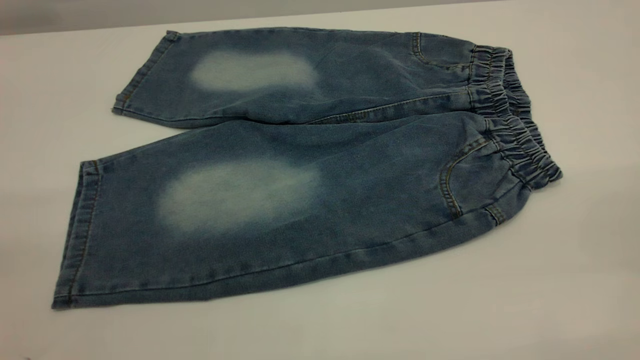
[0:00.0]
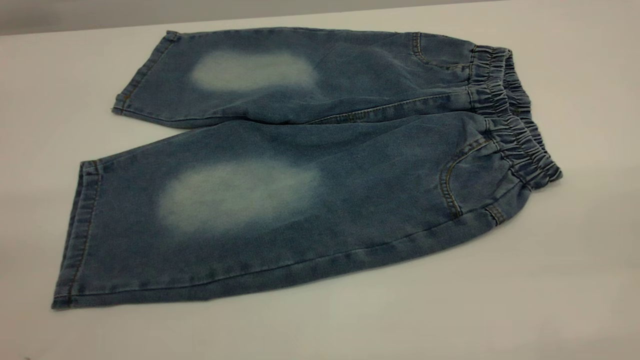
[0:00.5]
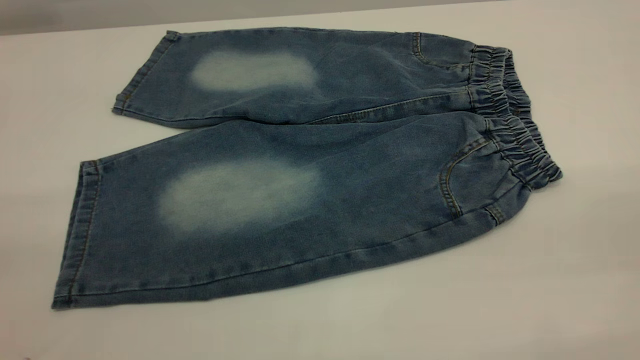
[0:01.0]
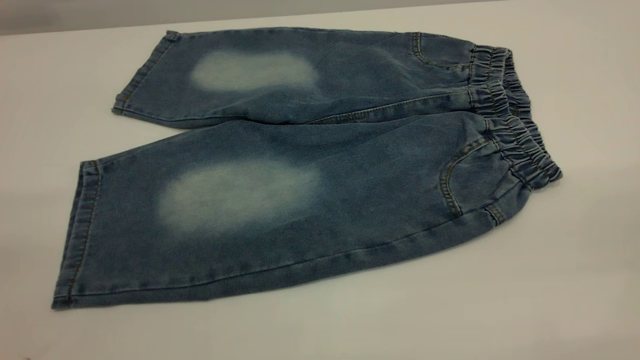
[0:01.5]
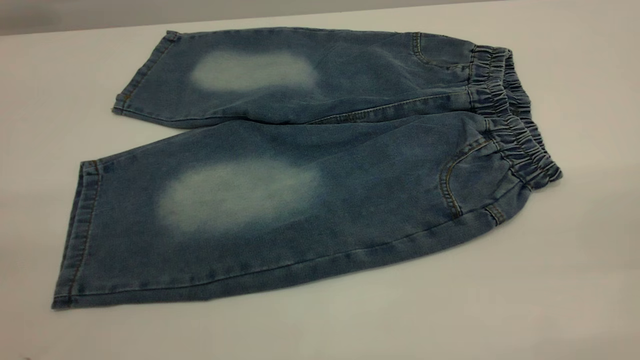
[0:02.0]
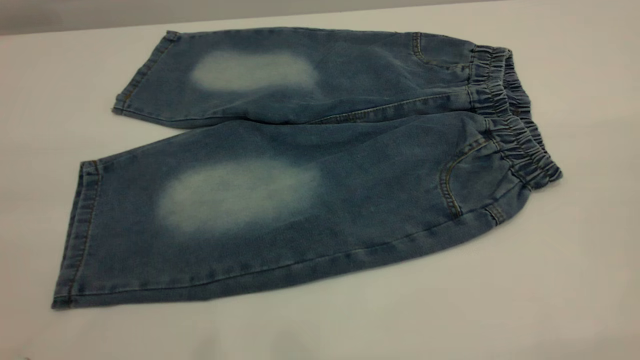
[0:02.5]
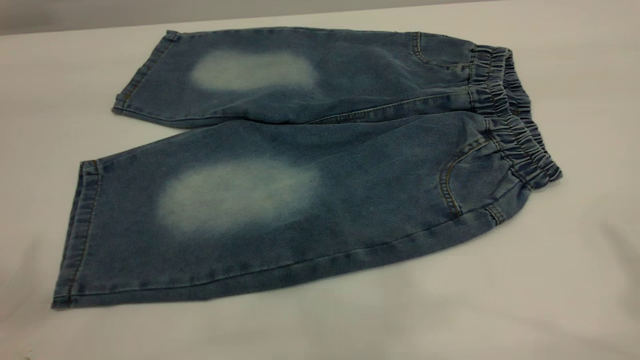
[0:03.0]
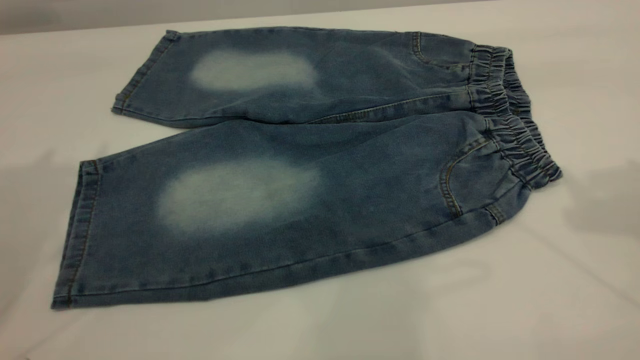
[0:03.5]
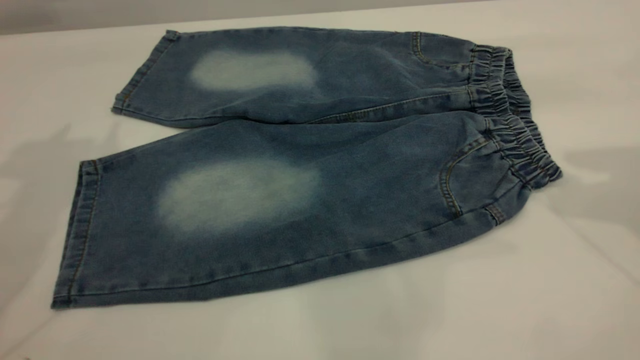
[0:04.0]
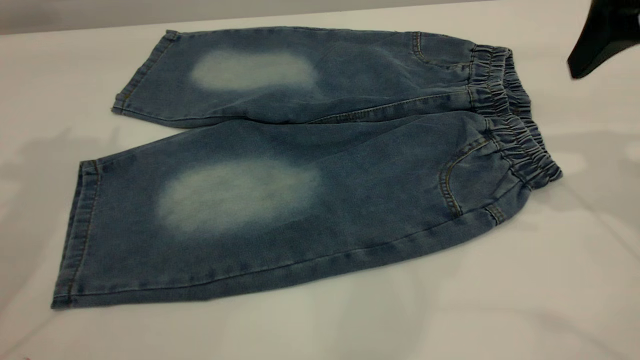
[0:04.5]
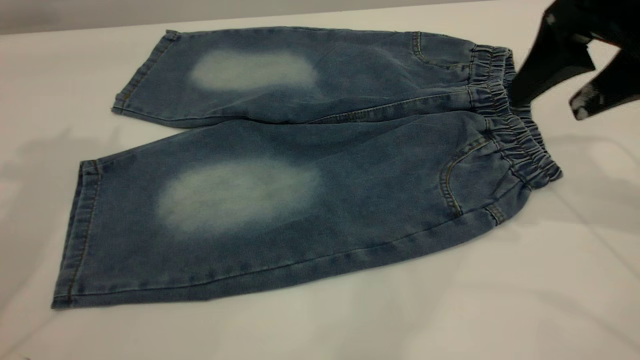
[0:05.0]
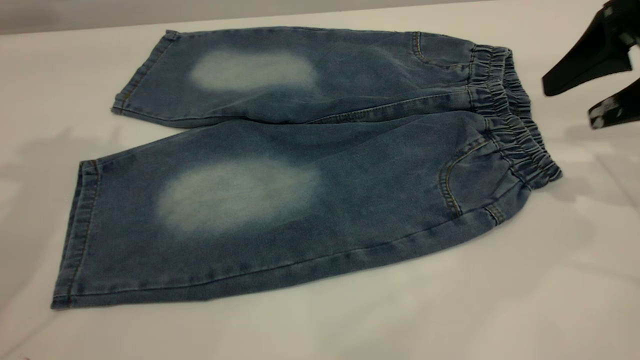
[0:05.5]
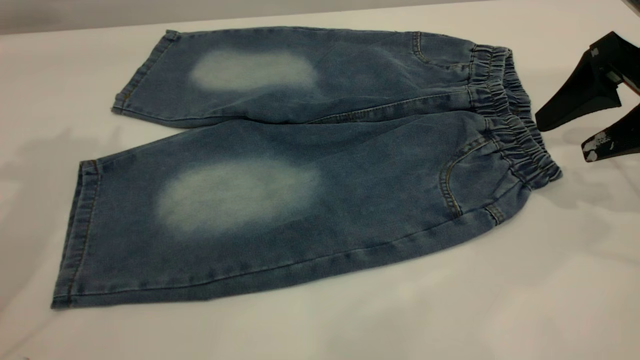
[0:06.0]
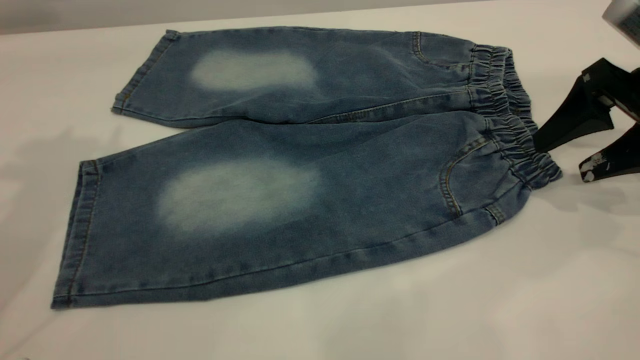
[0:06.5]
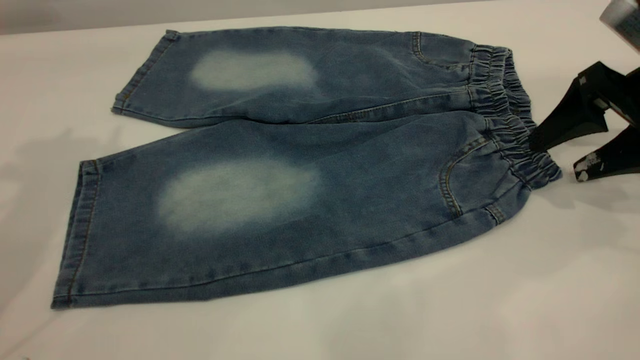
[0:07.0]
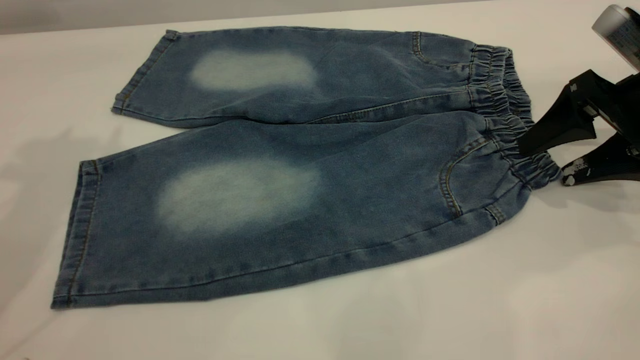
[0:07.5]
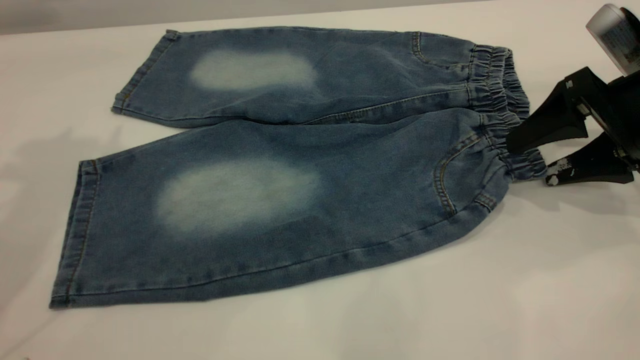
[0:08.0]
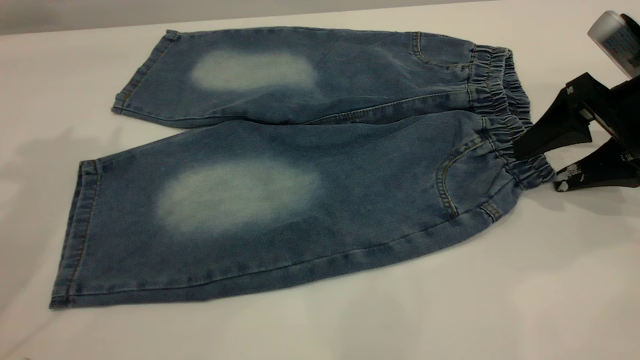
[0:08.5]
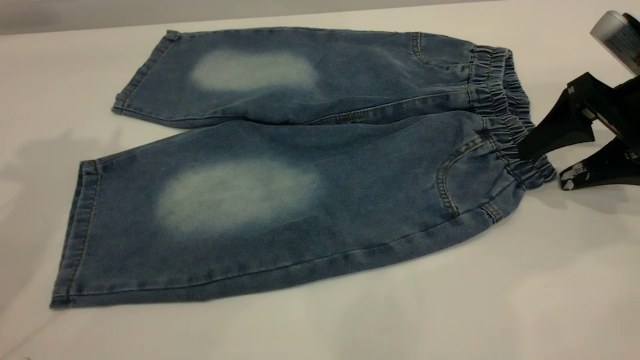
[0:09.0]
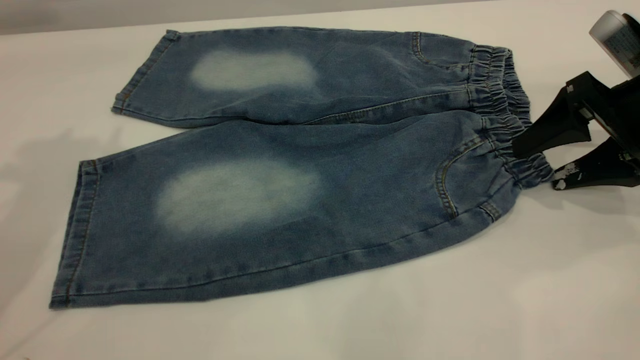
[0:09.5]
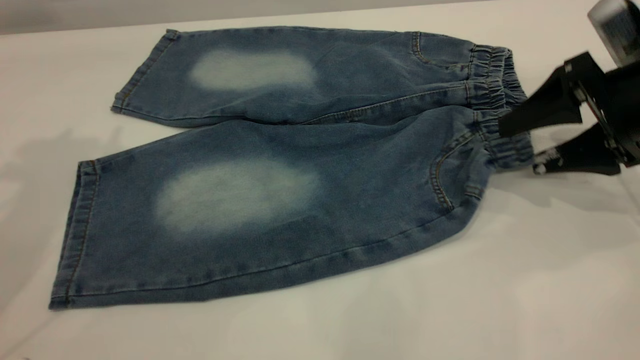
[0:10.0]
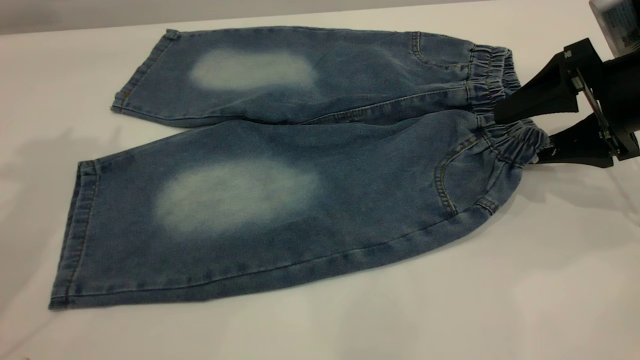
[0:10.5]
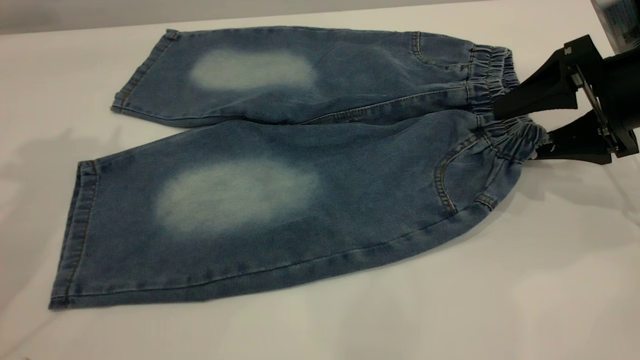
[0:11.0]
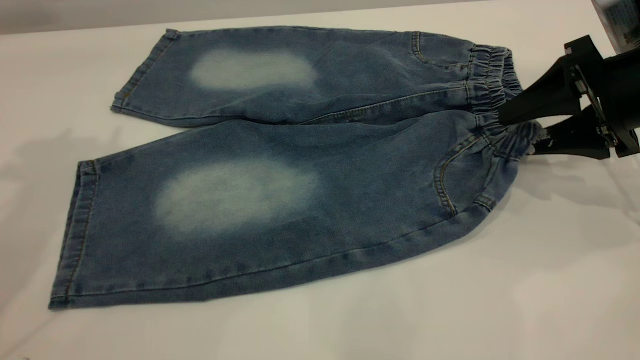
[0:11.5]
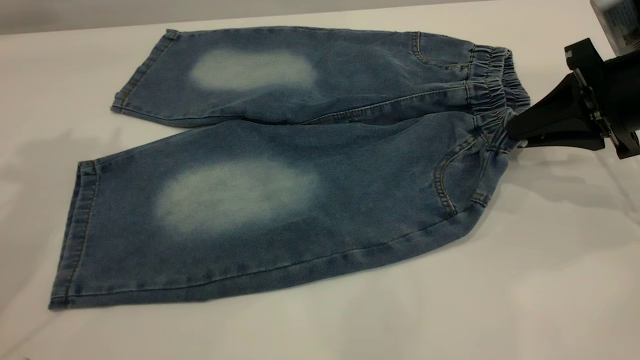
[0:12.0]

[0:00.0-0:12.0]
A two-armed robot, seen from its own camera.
0:00.0 to 0:02.0: Both grippers stay about where they are.
0:04.0 to 0:06.0: The right gripper is displaced downward by about 15 cm.
0:06.0 to 0:10.0: The grippers stay close to where they were, moving slightly.
0:10.0 to 0:12.0: The right gripper closes its fingers.

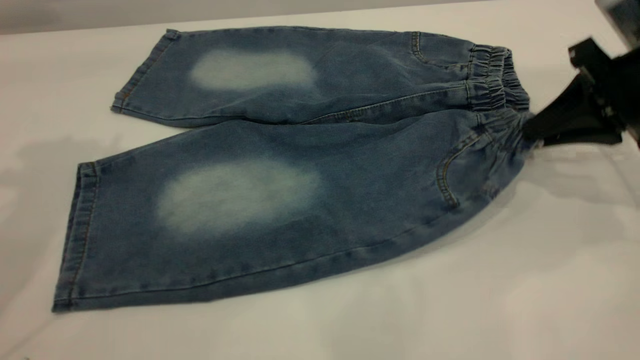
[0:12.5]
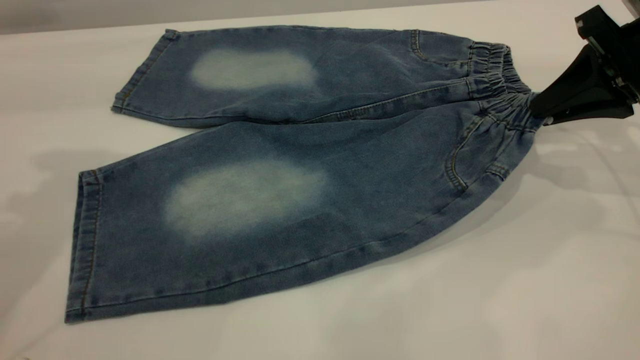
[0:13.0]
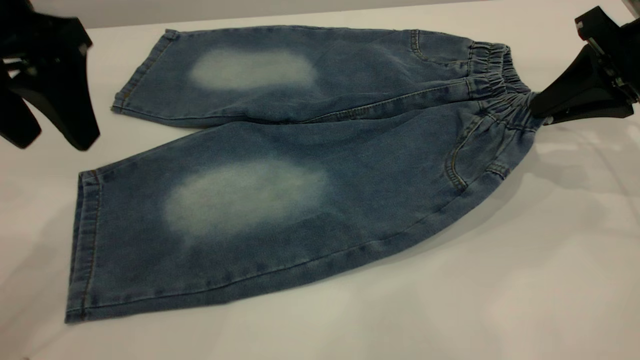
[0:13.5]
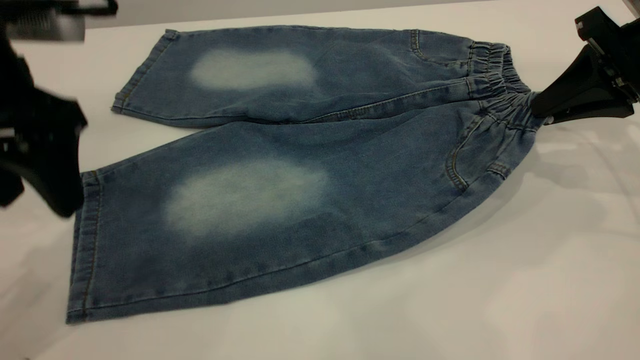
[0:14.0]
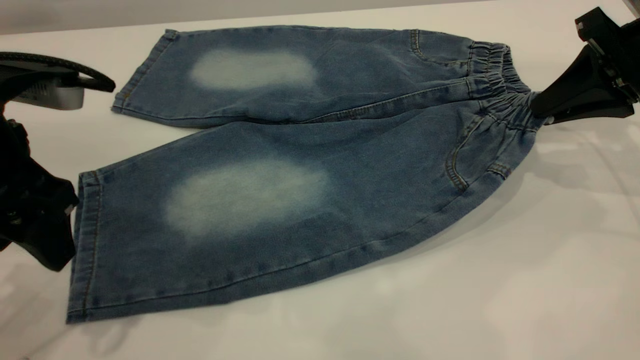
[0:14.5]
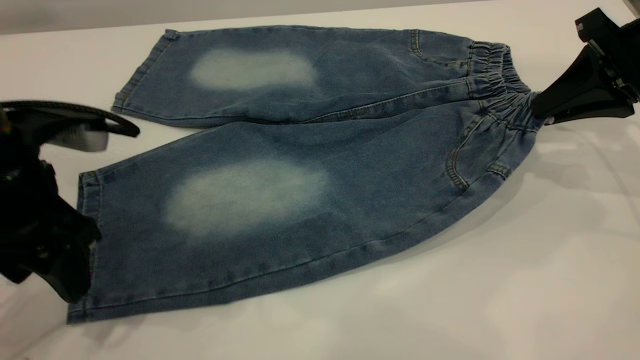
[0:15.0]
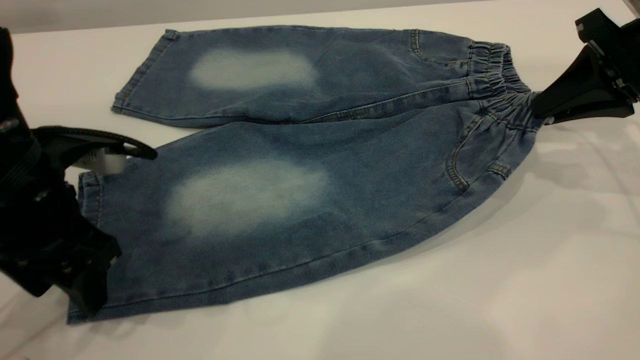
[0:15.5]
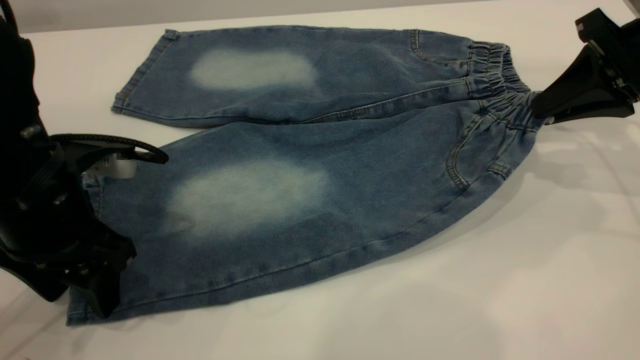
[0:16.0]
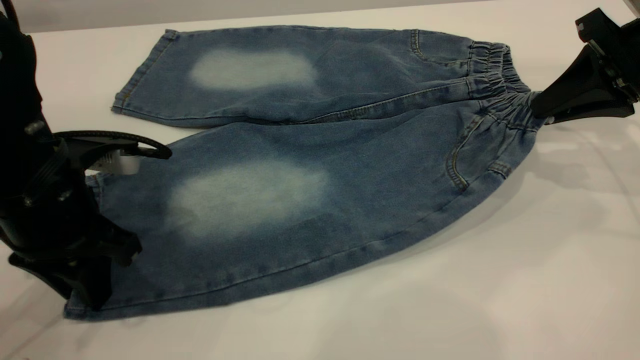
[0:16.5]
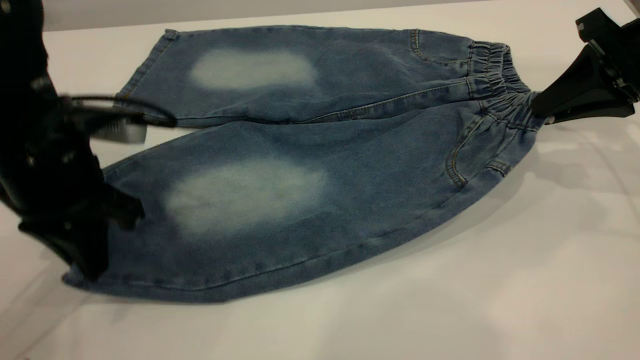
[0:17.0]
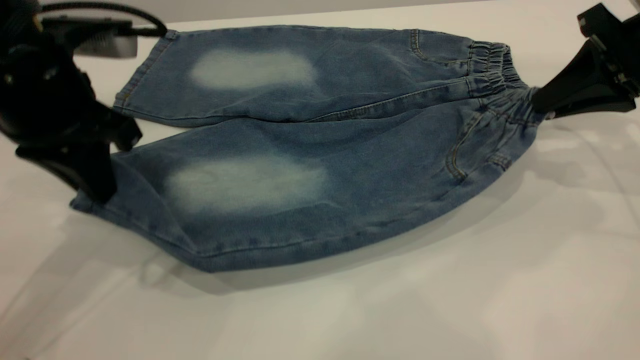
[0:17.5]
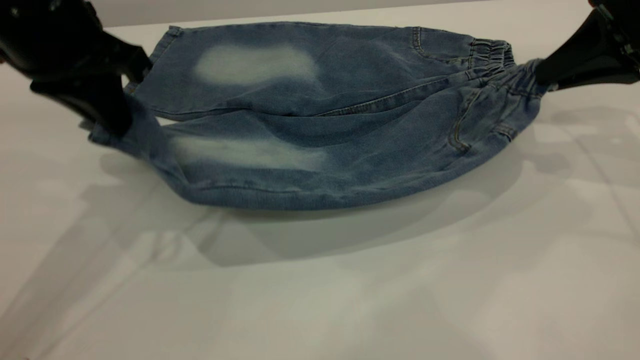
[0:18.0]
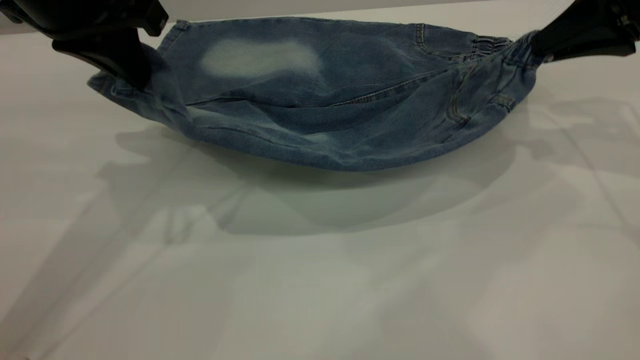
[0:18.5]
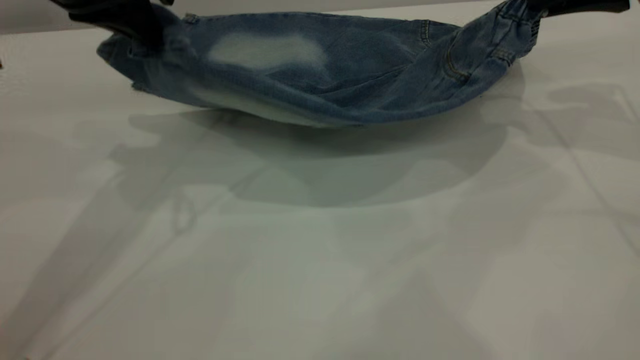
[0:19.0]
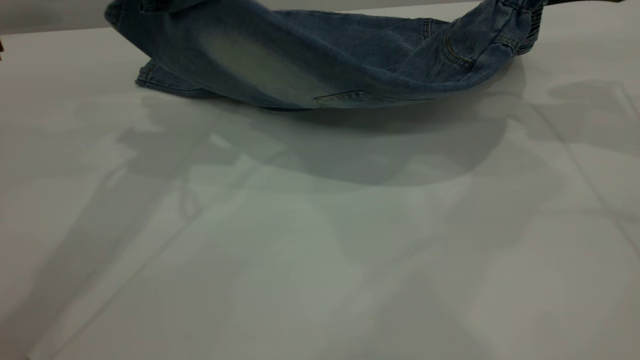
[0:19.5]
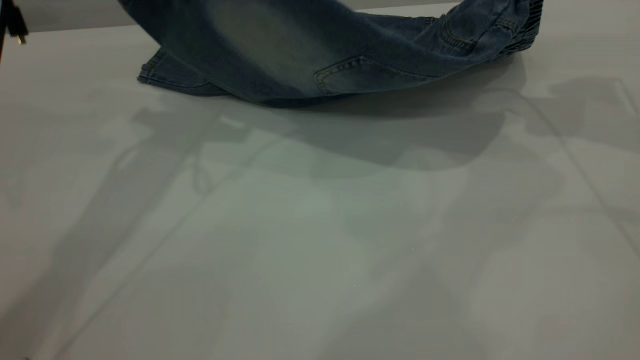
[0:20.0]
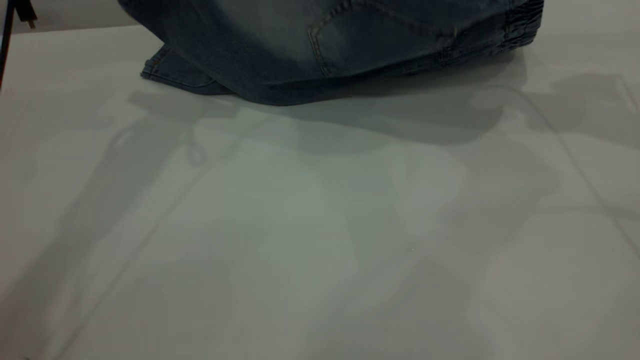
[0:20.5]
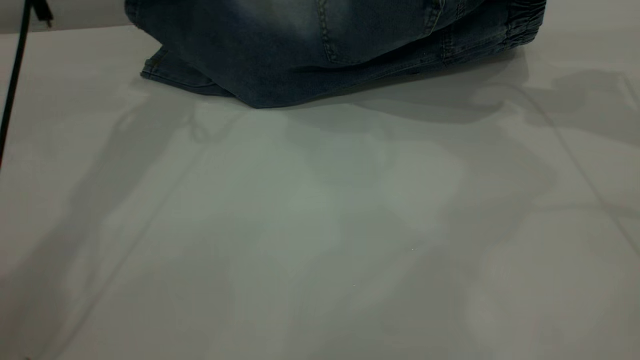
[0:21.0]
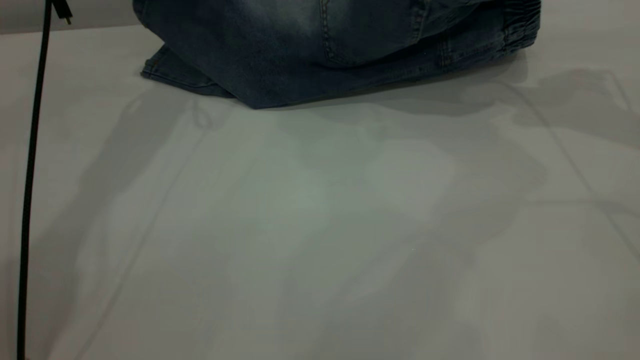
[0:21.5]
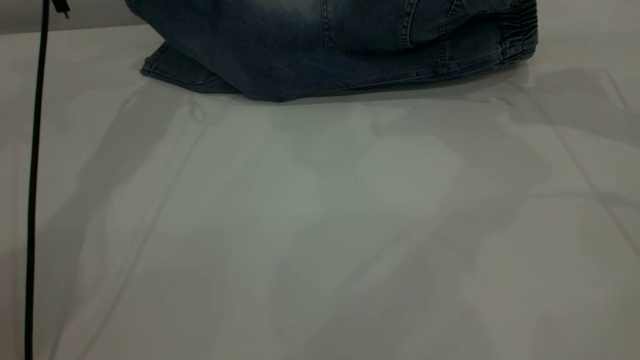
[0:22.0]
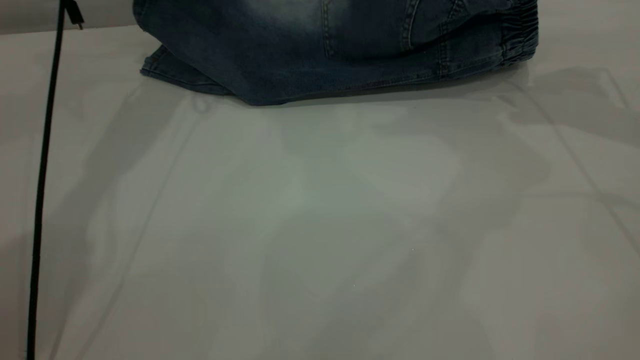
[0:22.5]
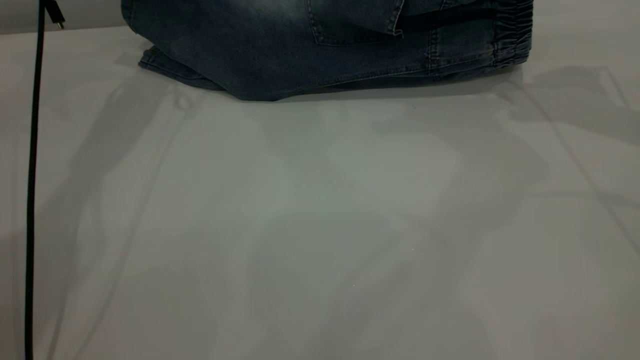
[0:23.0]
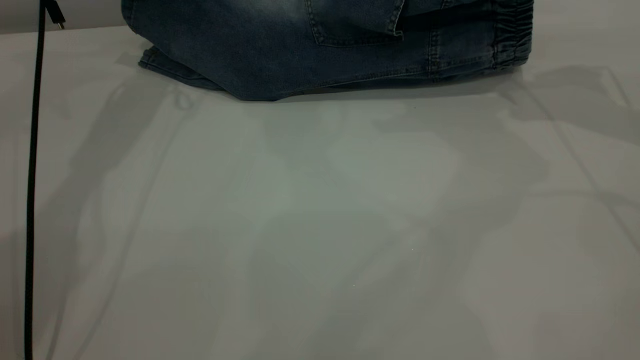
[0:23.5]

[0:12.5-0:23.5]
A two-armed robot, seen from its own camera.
0:12.5 to 0:14.5: The left gripper goes about 20 cm downward and backward.
0:14.5 to 0:16.0: The left gripper is displaced downward by approximately 10 cm.
0:16.0 to 0:18.0: The left gripper goes about 15 cm upward and forward, and closes.
0:18.0 to 0:20.0: The left gripper travels forward by some 10 cm. The right gripper ends up approximately 5 cm from where it was.
0:20.0 to 0:21.5: The left gripper goes approximately 10 cm forward.
0:21.5 to 0:23.5: The grippers make only small movements.
